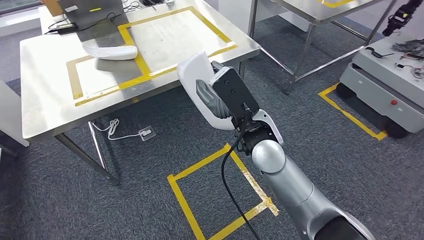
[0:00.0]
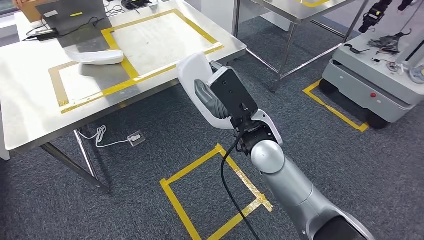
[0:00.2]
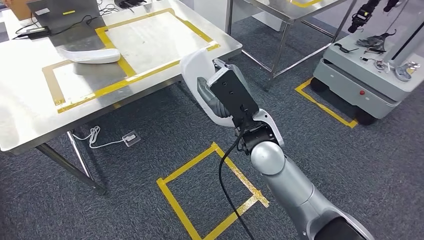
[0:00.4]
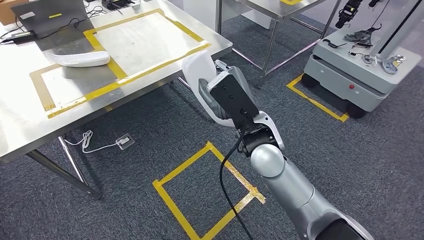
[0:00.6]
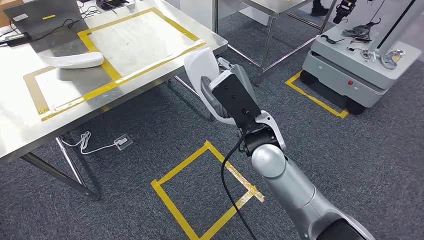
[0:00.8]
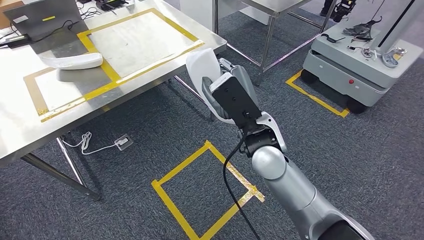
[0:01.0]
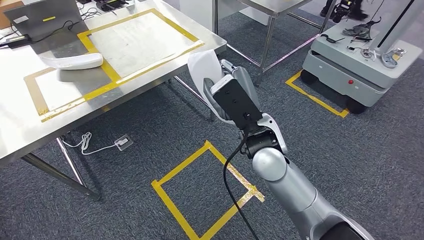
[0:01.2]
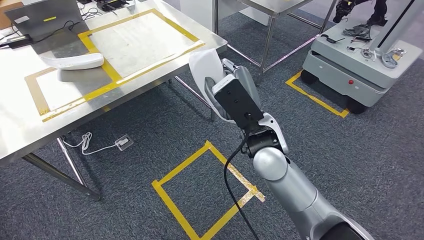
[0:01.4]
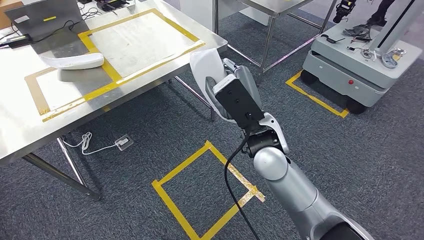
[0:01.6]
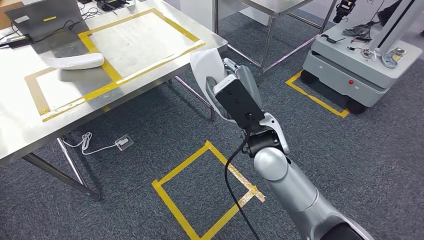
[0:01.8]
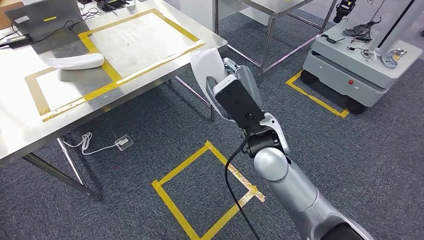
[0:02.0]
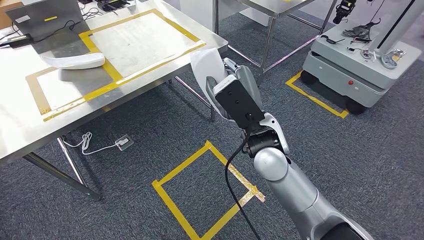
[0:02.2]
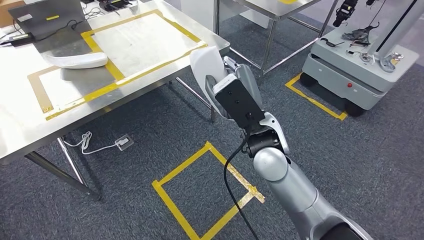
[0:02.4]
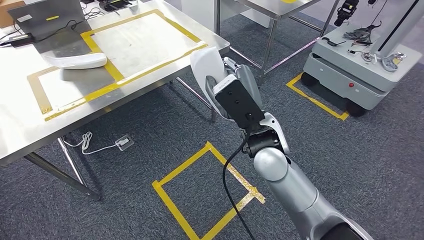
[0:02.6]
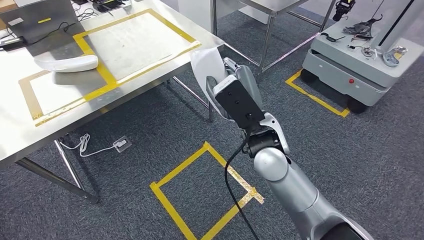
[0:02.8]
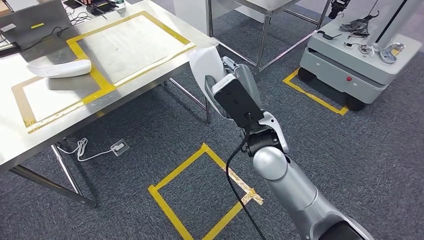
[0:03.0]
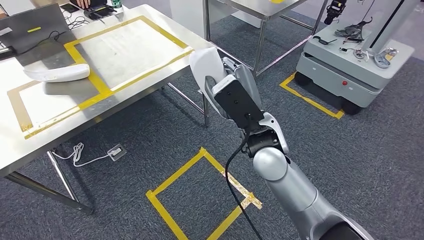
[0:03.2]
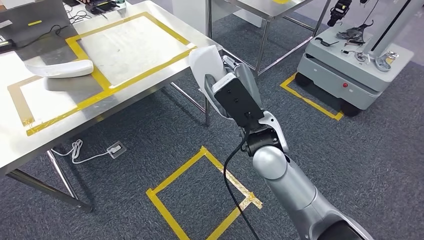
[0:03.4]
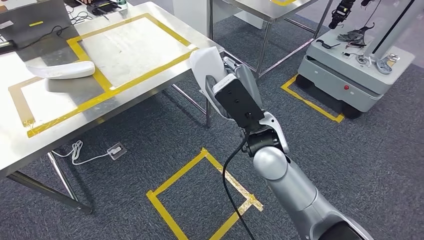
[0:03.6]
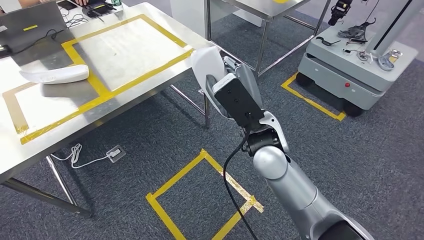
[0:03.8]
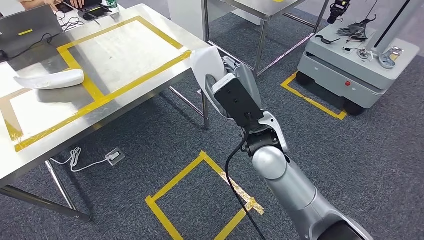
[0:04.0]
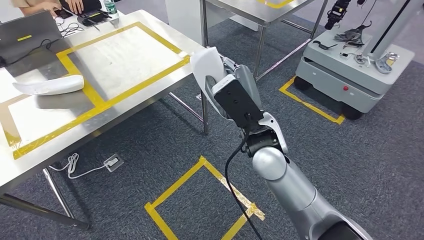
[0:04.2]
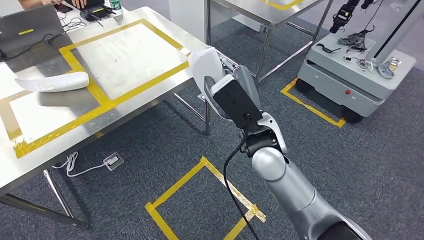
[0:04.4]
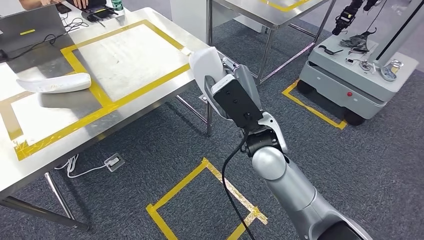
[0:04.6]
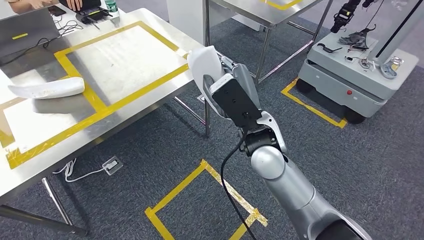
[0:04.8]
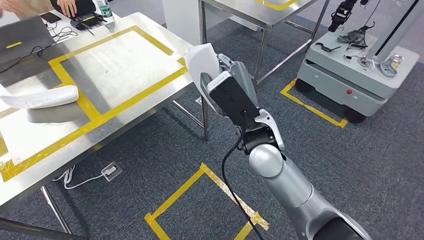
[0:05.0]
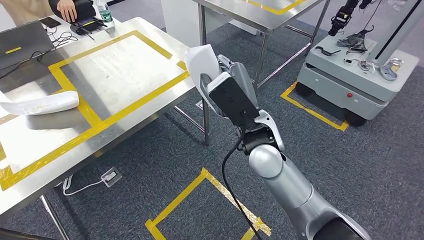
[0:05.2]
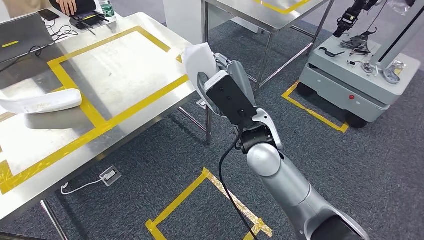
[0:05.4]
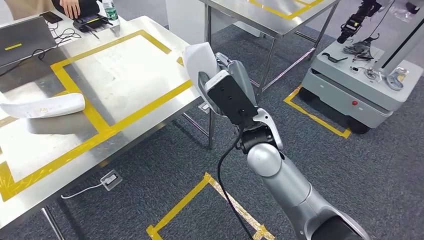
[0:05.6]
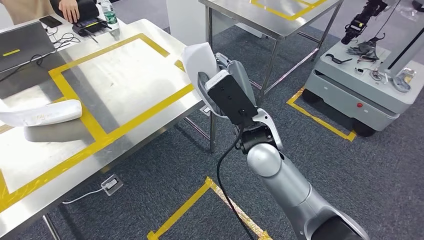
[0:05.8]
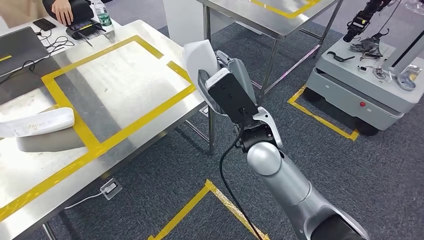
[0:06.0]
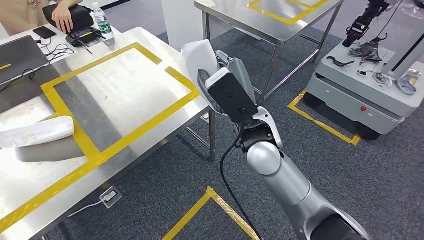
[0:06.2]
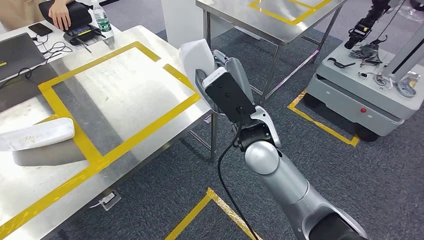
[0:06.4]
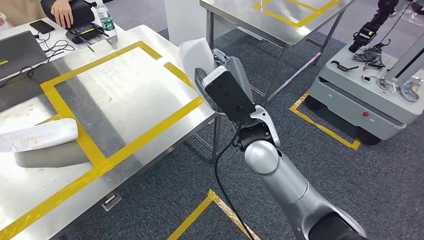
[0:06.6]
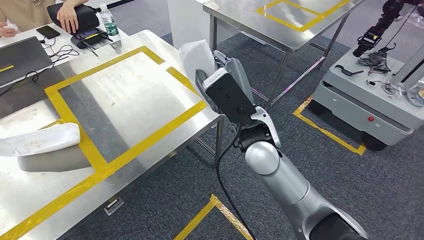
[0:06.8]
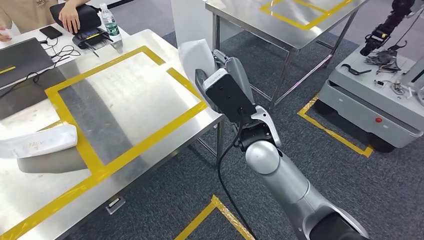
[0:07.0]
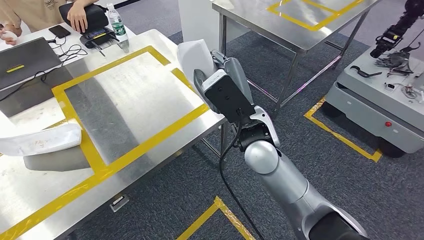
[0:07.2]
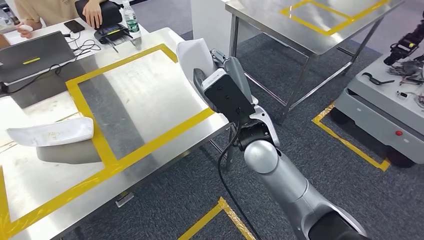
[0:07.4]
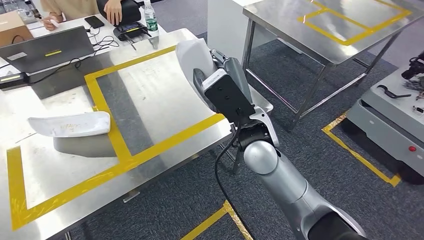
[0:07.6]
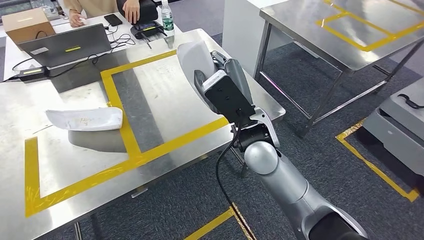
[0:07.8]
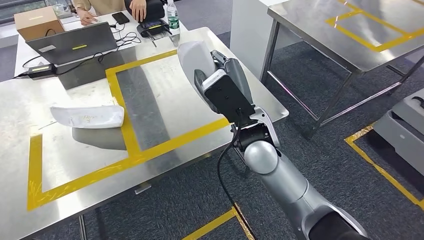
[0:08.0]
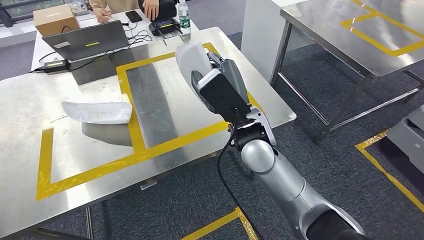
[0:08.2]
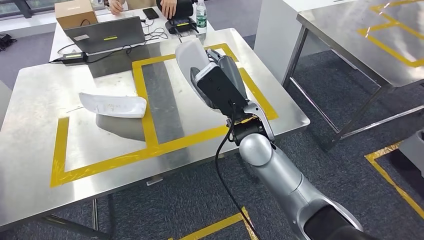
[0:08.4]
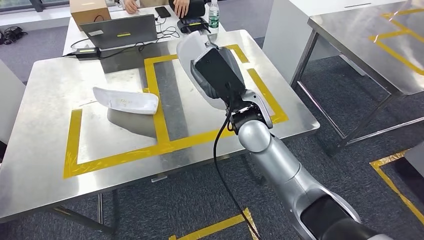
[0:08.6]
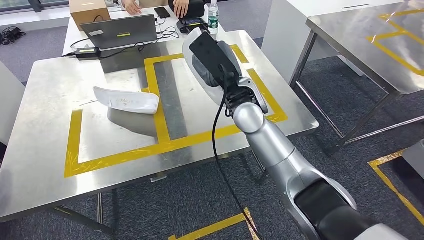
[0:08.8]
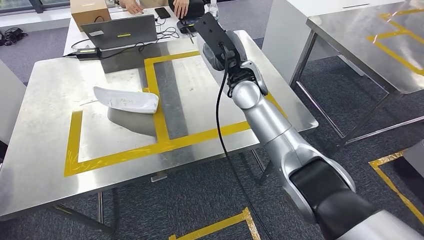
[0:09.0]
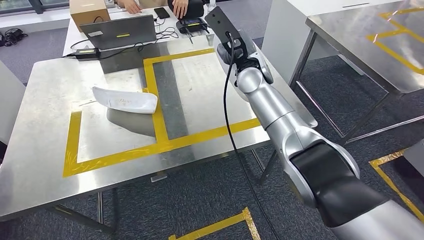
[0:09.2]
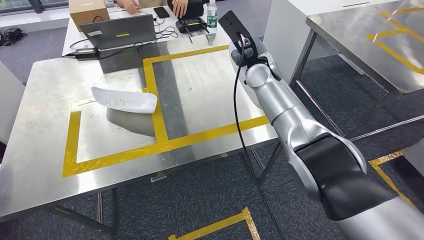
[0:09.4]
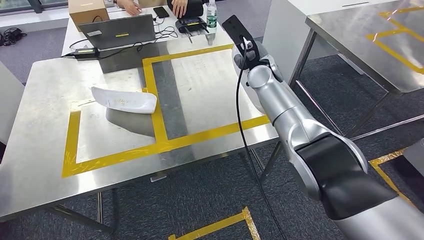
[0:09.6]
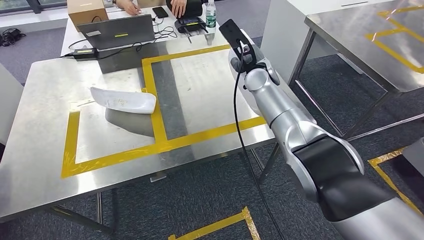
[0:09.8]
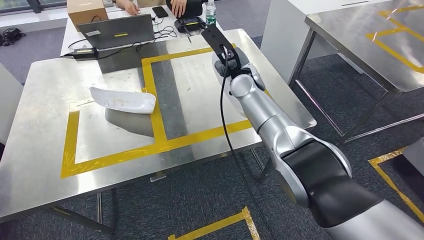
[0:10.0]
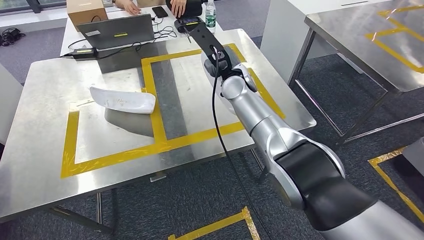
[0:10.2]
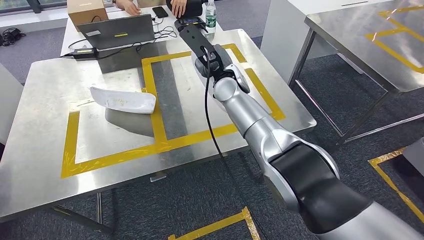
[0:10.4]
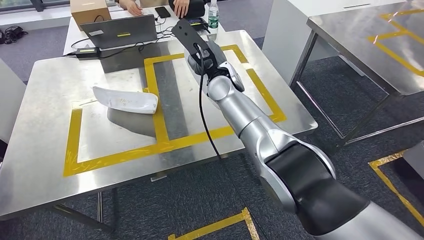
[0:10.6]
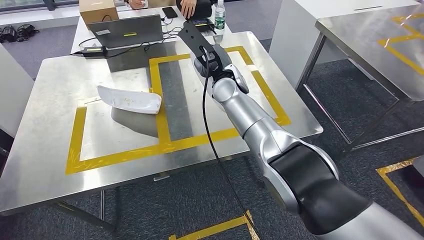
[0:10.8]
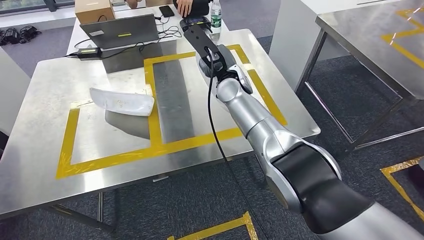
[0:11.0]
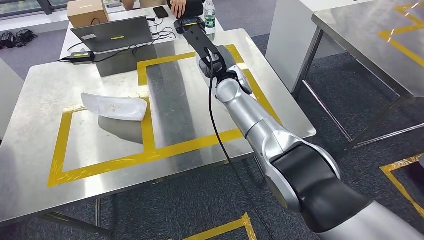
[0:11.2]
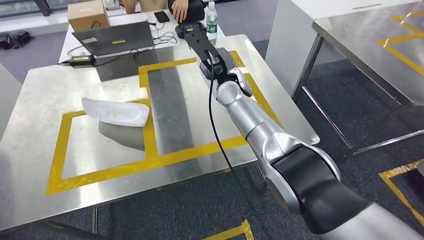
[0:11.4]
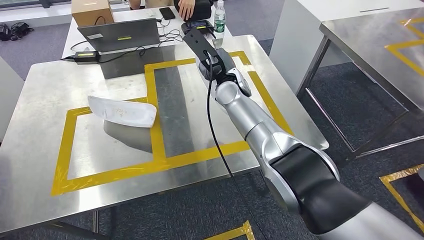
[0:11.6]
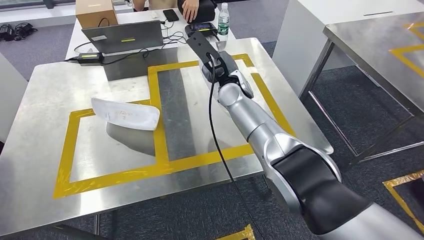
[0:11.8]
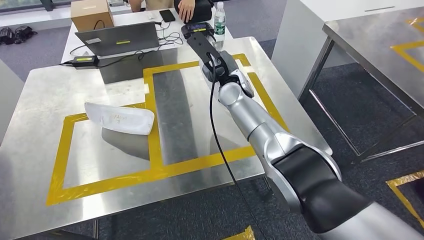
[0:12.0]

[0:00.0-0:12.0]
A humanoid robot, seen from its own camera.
0:09.0 to 0:10.4: The right hand goes to the right and returns, about 10 cm each way.

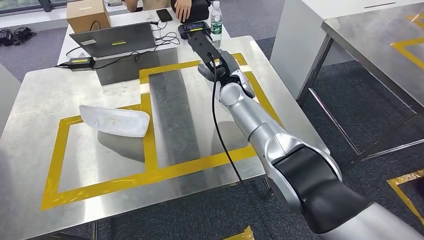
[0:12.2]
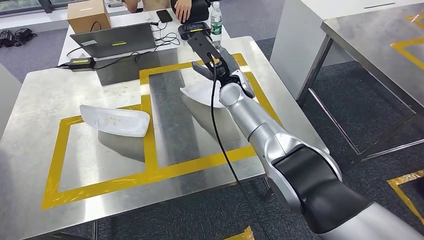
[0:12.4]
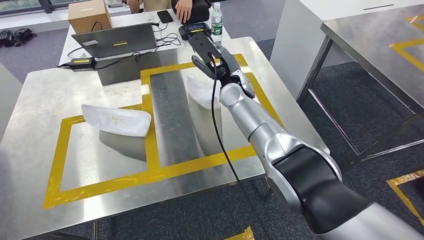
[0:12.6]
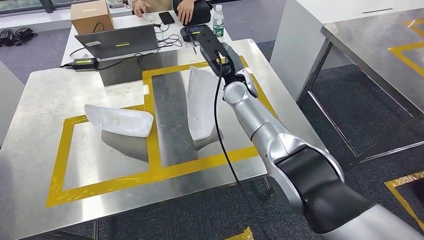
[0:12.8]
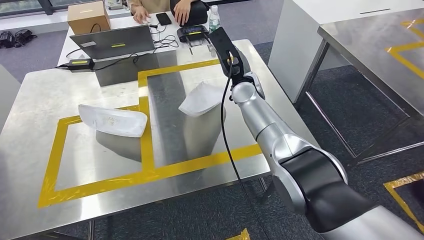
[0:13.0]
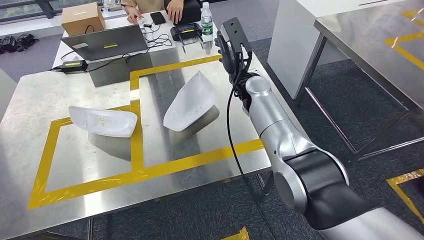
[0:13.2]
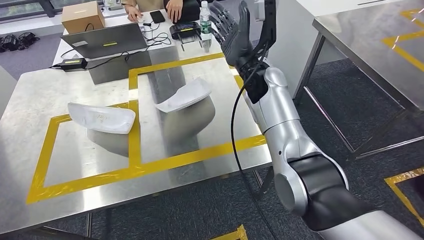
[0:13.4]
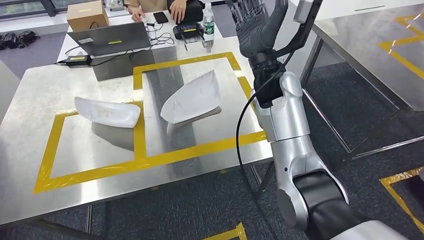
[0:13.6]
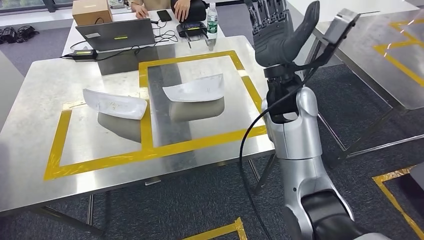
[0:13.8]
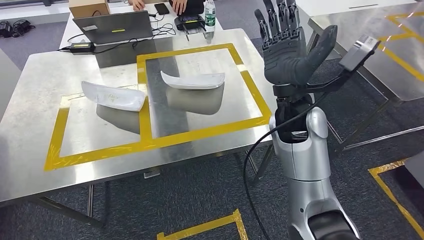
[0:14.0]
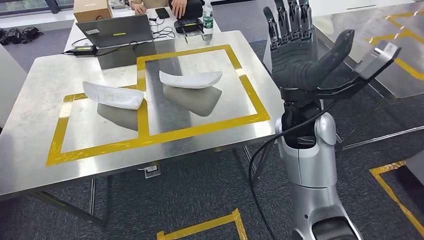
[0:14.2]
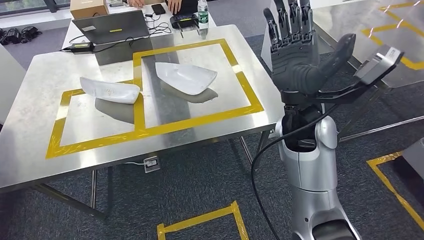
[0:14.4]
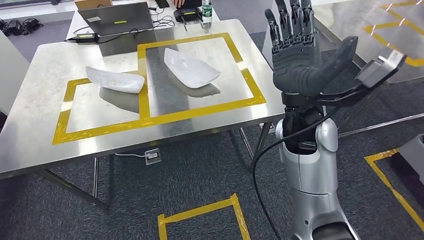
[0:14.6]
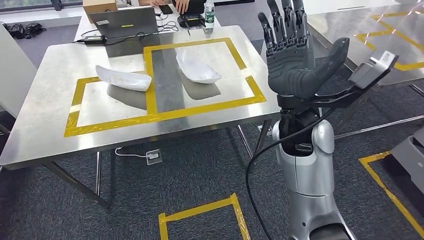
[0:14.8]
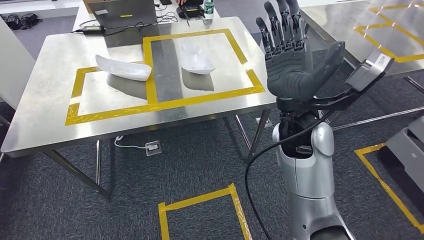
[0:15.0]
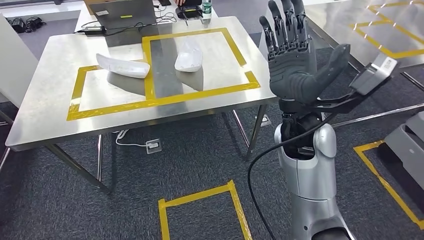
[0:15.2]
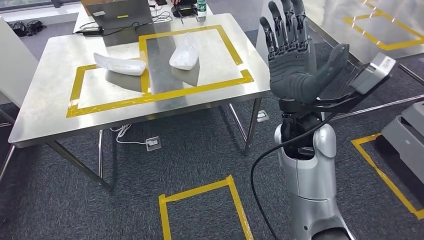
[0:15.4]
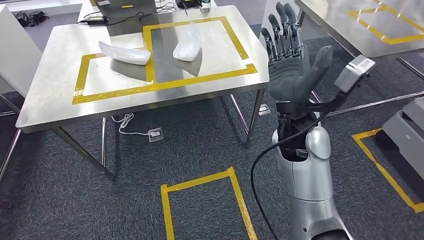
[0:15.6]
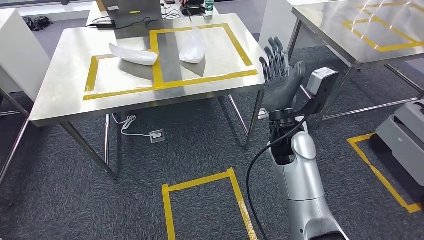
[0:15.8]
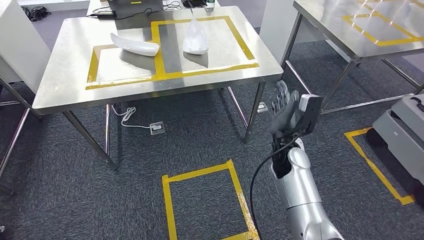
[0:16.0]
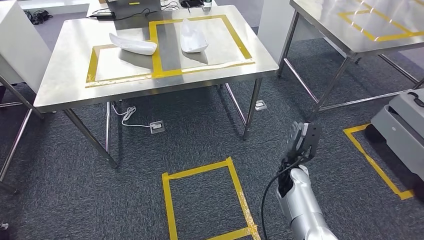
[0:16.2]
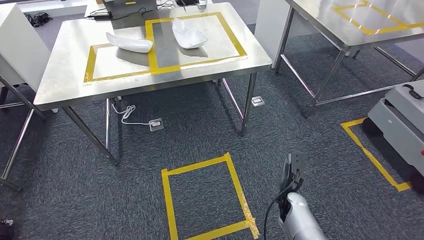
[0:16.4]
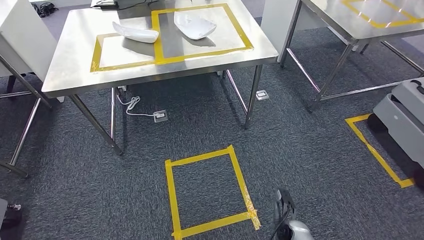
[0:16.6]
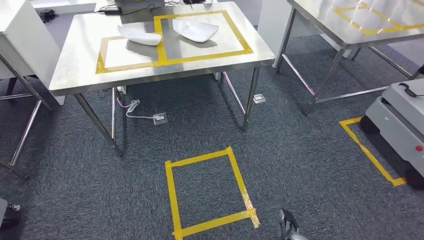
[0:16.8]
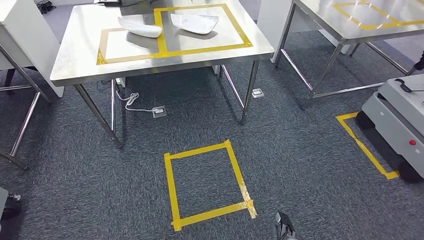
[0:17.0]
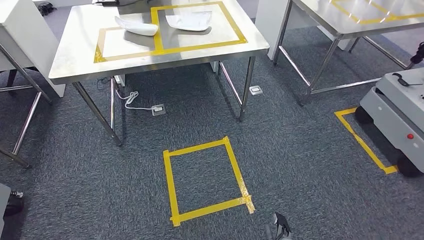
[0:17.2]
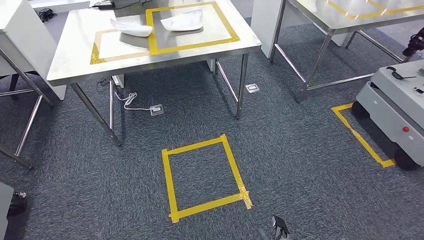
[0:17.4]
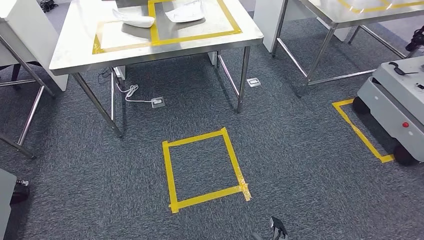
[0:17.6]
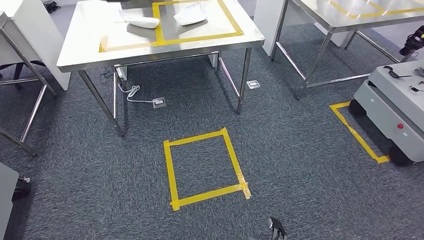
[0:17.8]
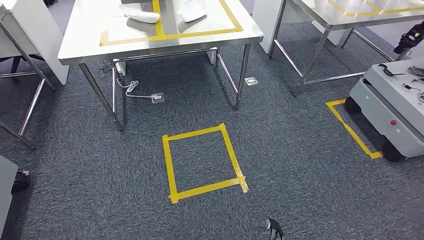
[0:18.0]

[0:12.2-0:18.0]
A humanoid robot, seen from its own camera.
Step, 0:12.2 to 0:15.0: Insert the small component into the corresponding slot on the workbench.
